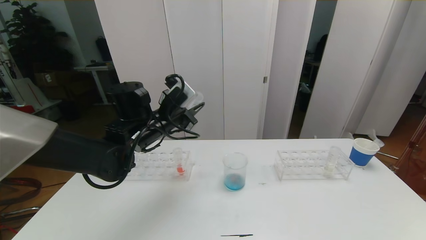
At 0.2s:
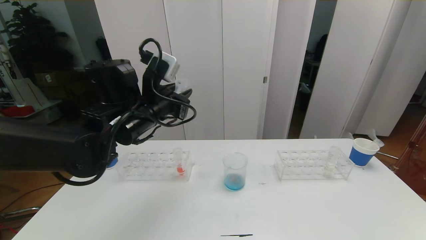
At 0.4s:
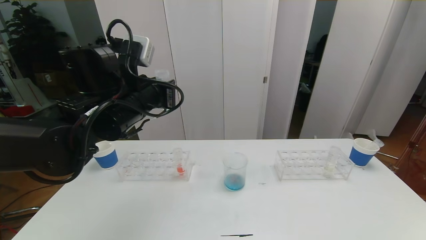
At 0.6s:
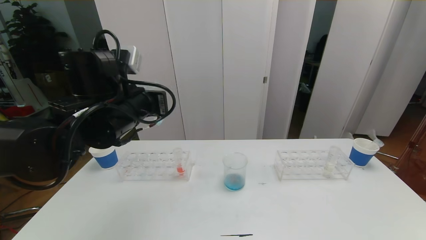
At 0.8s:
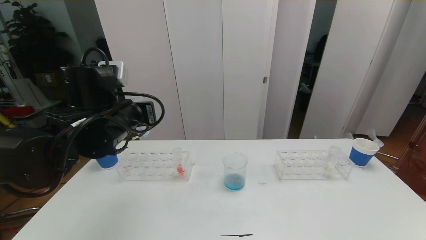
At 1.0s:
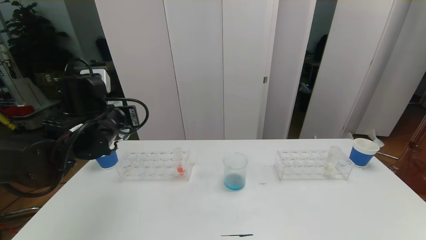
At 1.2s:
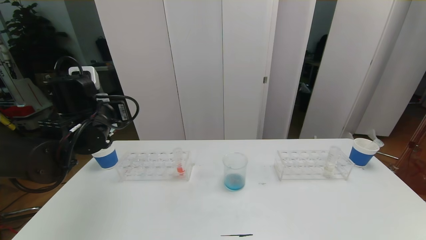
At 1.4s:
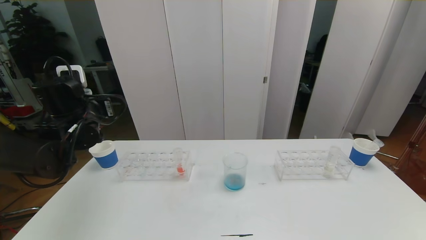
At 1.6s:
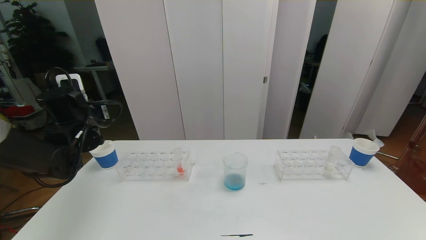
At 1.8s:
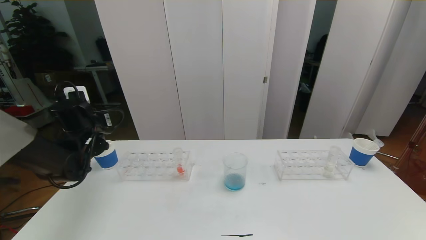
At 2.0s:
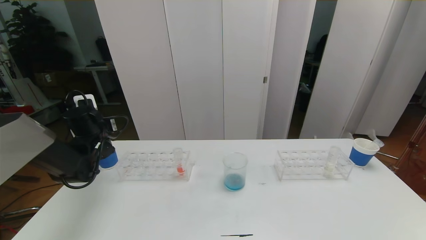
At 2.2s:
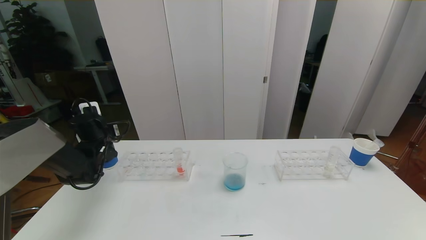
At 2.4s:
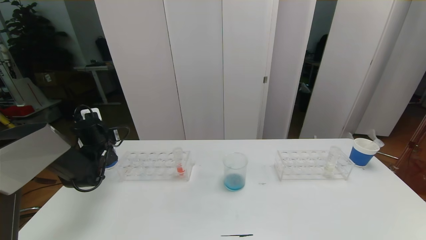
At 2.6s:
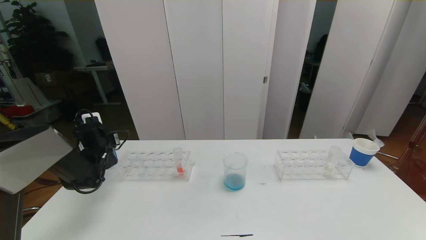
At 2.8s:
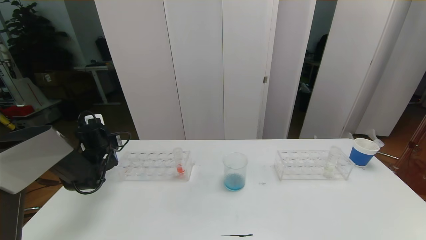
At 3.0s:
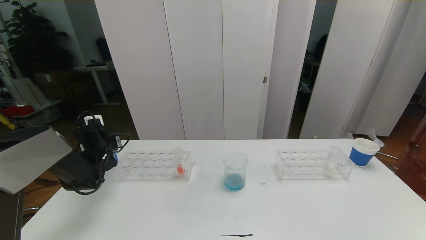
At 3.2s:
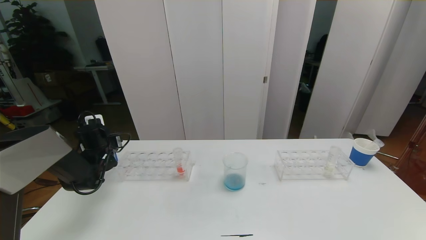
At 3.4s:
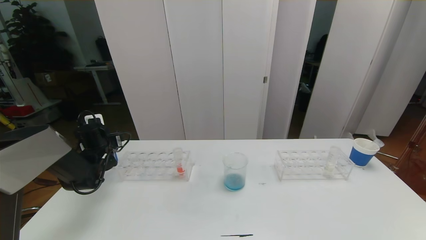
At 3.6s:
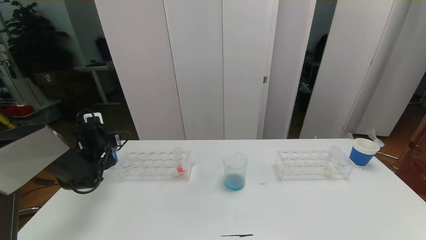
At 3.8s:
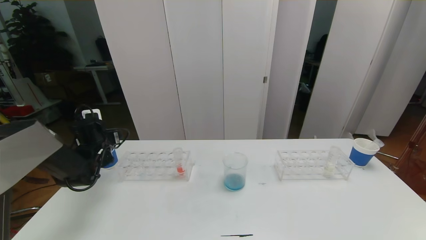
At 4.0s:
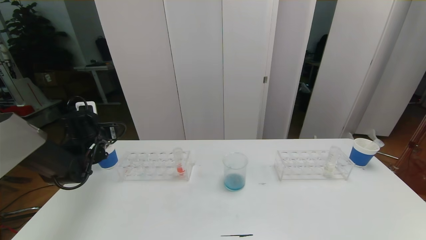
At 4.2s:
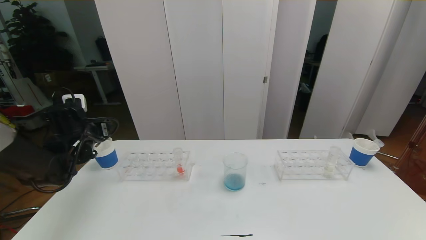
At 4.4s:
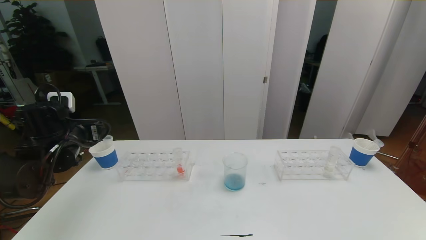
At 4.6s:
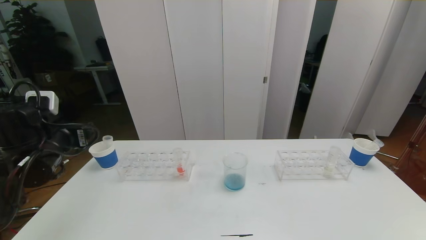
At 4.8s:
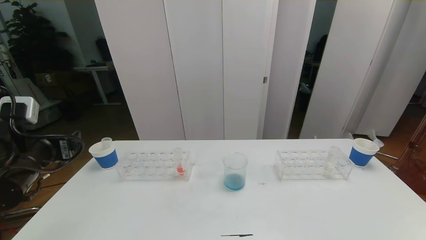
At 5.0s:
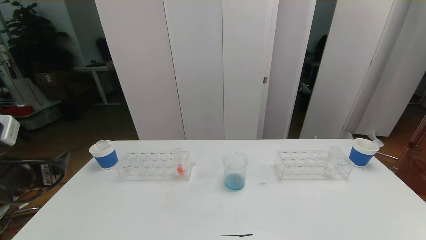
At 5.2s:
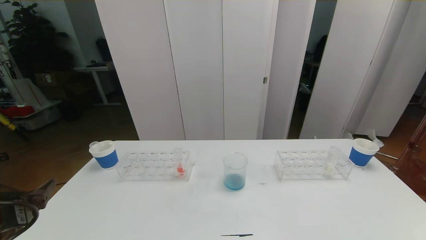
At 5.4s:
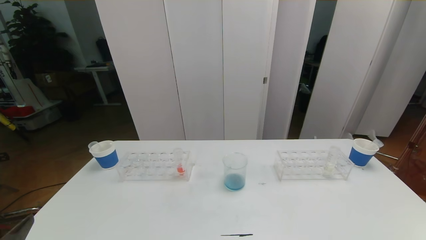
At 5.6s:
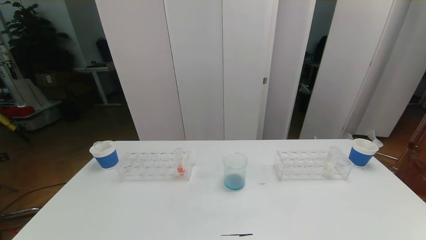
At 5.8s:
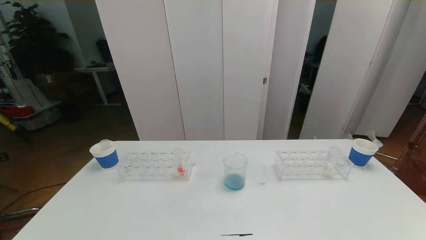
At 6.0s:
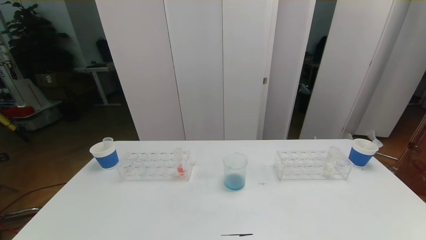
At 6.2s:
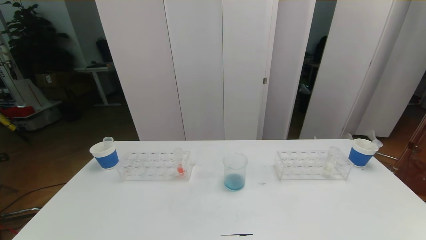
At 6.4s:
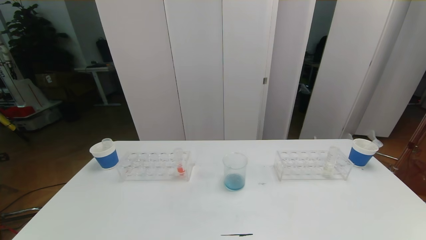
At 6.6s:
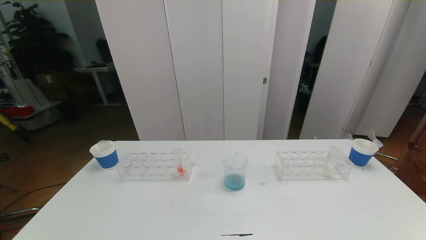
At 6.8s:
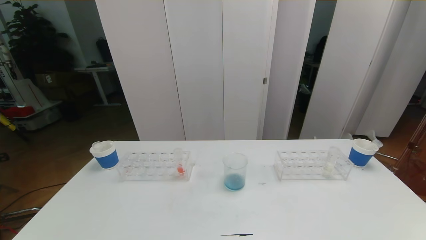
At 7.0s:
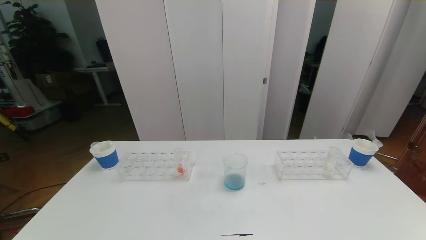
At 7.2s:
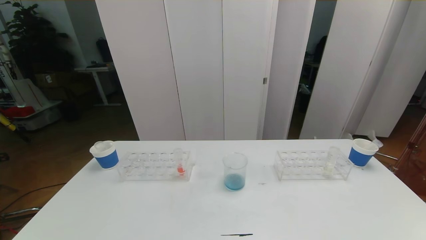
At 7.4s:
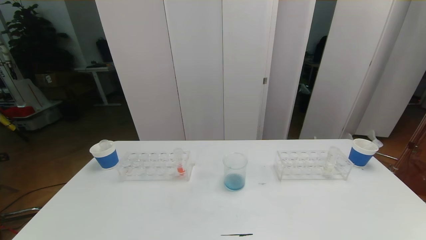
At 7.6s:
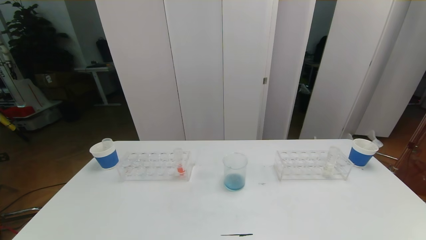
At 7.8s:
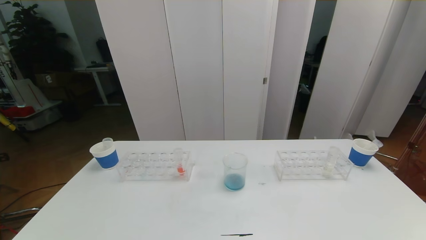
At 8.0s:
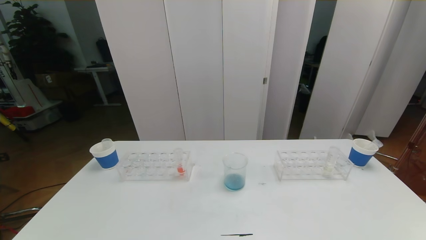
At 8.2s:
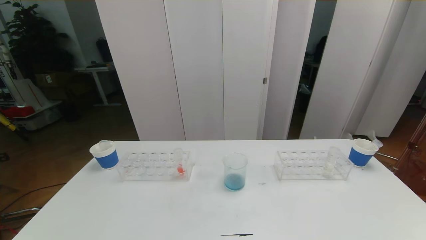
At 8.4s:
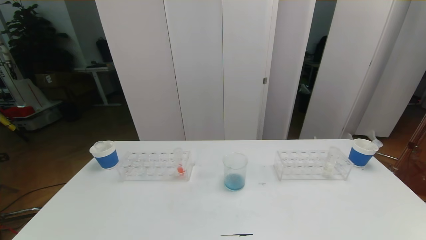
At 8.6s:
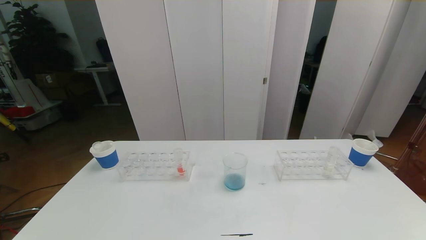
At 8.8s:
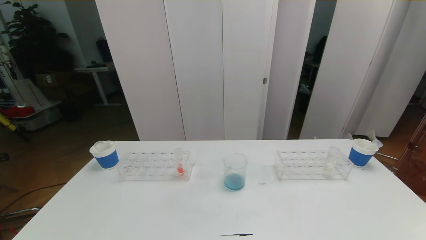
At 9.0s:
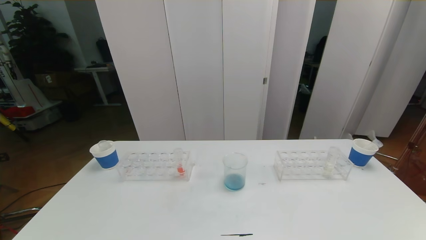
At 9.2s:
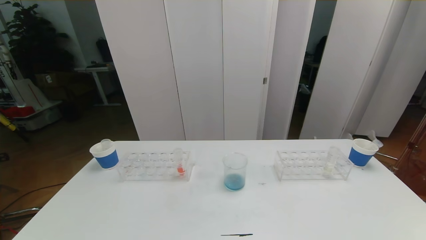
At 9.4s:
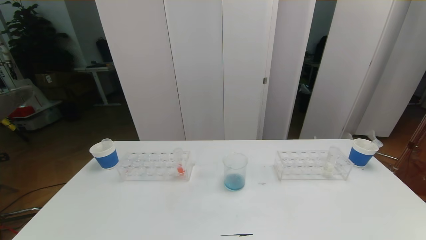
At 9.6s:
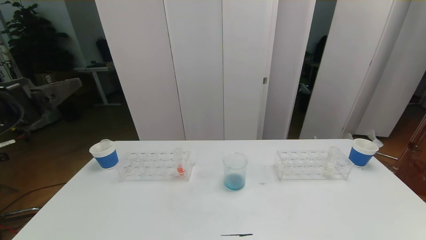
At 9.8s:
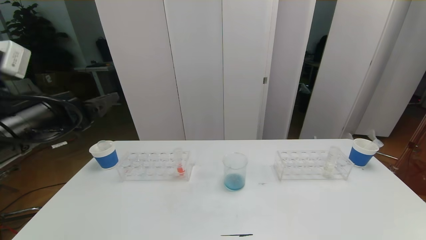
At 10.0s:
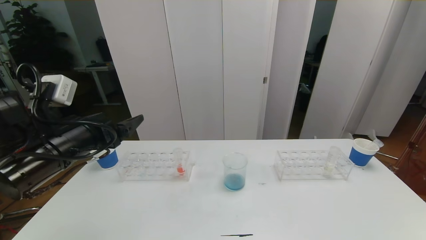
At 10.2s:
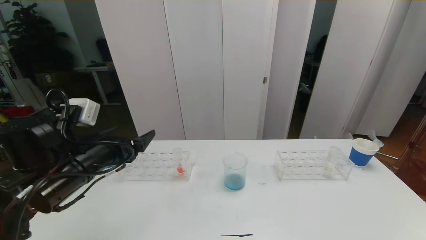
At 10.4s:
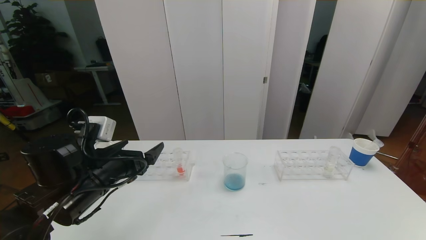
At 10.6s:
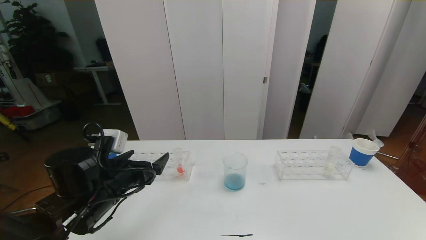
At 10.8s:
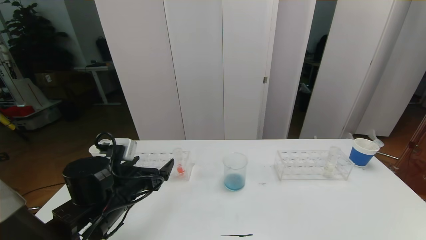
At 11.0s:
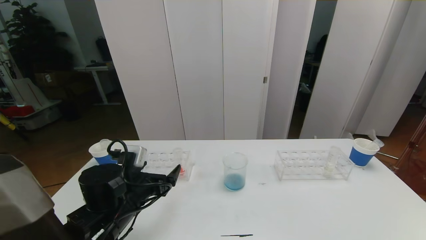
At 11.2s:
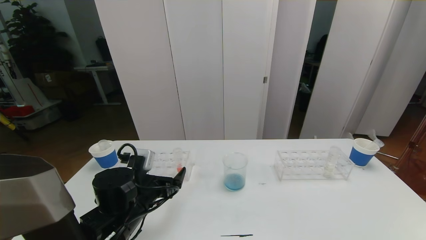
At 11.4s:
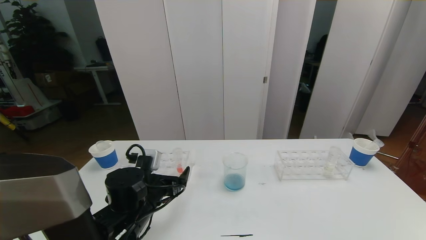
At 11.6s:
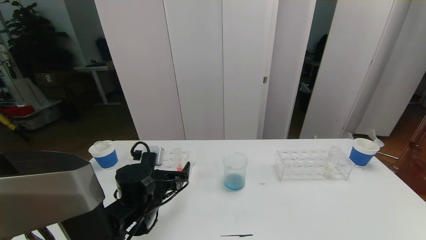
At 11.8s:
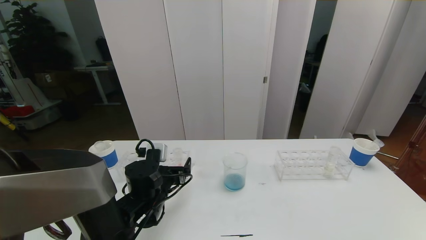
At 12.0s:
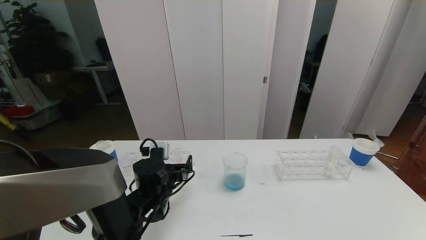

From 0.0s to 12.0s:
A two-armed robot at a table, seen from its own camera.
Task of the whole recording: pick up the test tube with red pigment the test tube with blue pigment and the test tube with white pigment by grippers and pour them into the beaker.
Step, from 0.0s to 6.2s: Pour the blue reagent into the graduated cylinder and place the test tube into the paper cup.
From 0.0s to 1.6s: The left gripper moves to the left, some 15 cm.
From 1.6s to 3.0s: The left gripper goes roughly 15 cm downward and forward.
From 3.0s to 4.4s: The left gripper heads upward and backward, covering approximately 15 cm, and opens its fingers.
From 4.4s to 6.0s: The left gripper shifts approximately 35 cm backward.
From 9.0s to 10.4s: The left gripper travels forward by roughly 25 cm.
From 10.4s to 12.0s: The left gripper moves downward, to the right and forward, about 15 cm.

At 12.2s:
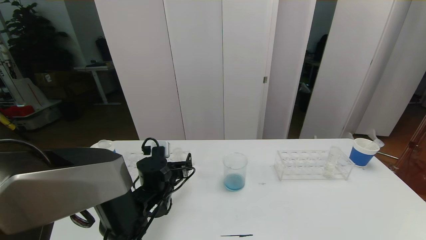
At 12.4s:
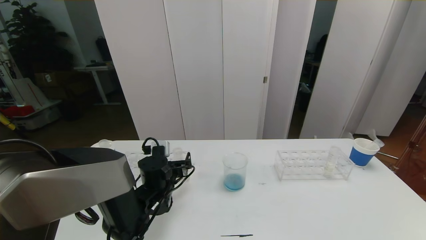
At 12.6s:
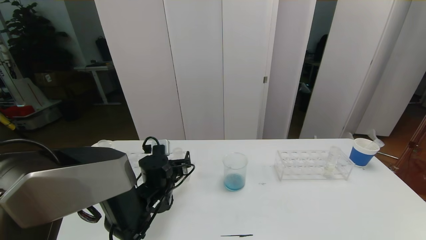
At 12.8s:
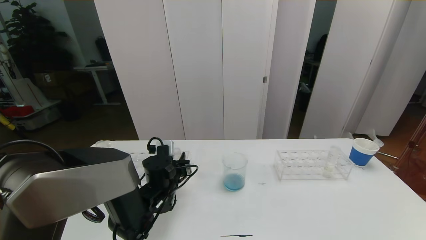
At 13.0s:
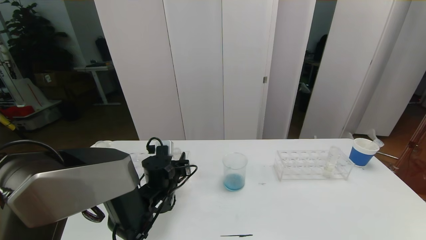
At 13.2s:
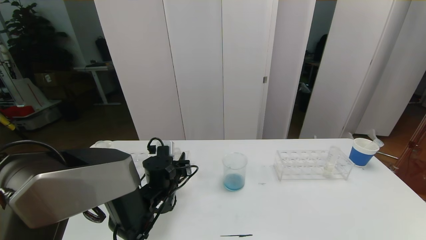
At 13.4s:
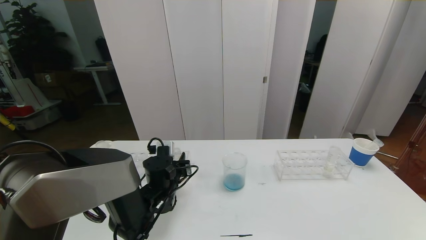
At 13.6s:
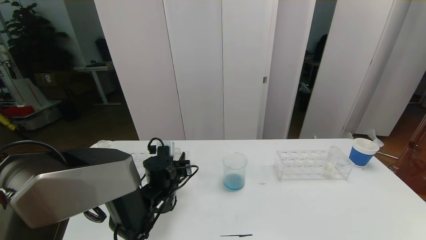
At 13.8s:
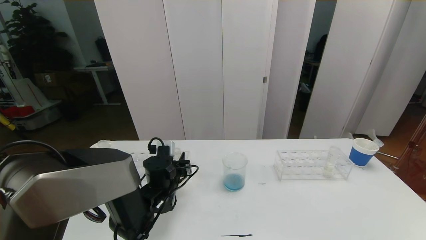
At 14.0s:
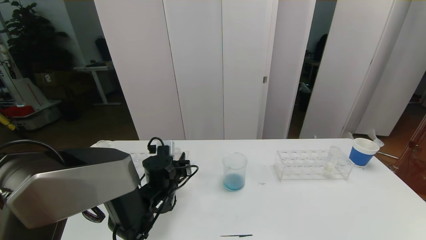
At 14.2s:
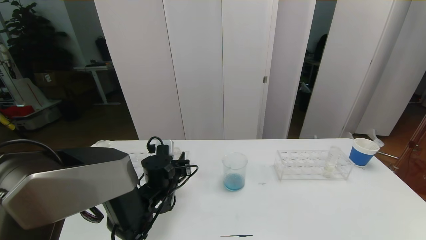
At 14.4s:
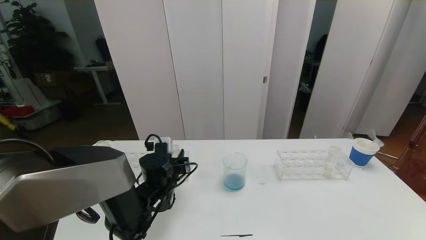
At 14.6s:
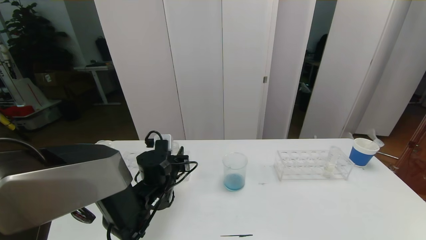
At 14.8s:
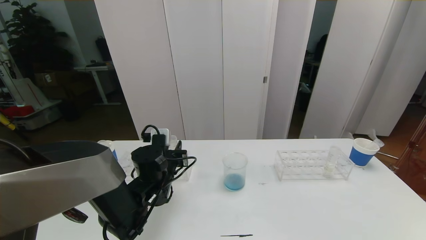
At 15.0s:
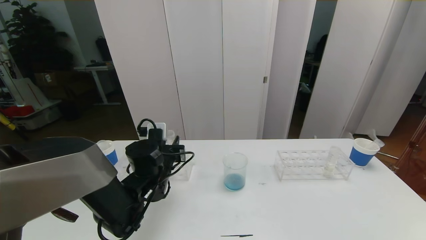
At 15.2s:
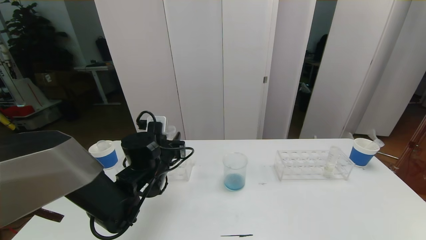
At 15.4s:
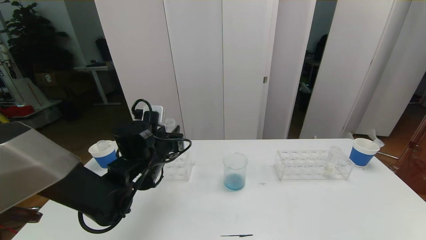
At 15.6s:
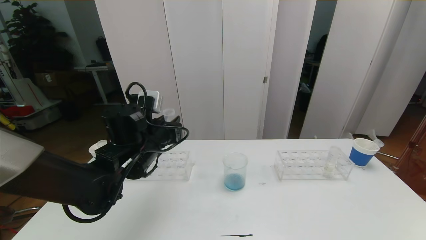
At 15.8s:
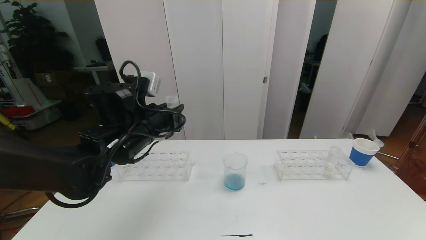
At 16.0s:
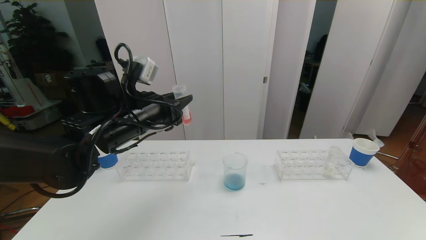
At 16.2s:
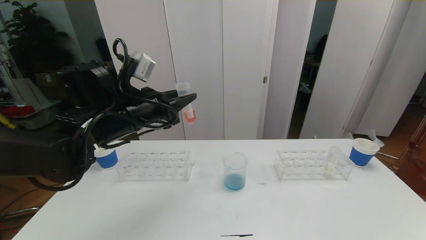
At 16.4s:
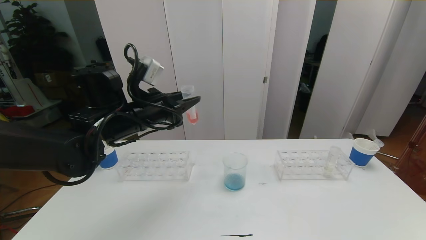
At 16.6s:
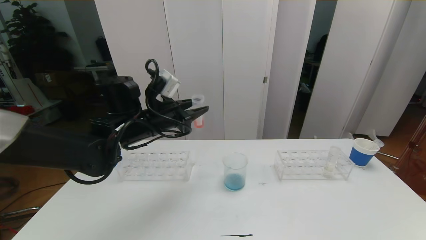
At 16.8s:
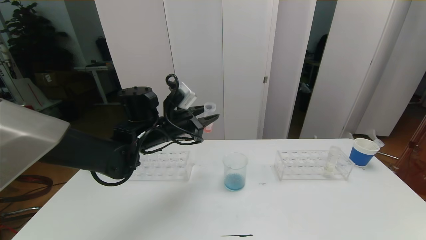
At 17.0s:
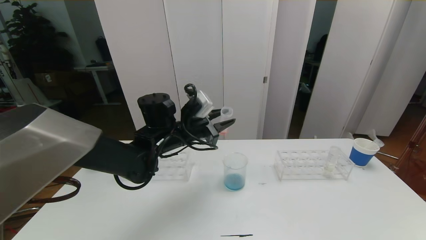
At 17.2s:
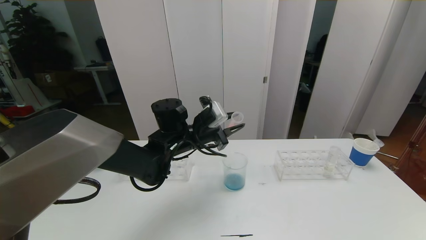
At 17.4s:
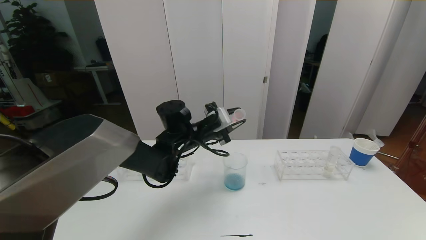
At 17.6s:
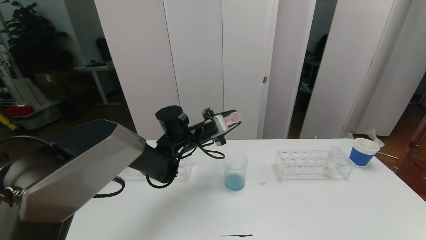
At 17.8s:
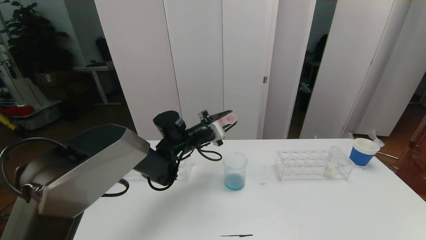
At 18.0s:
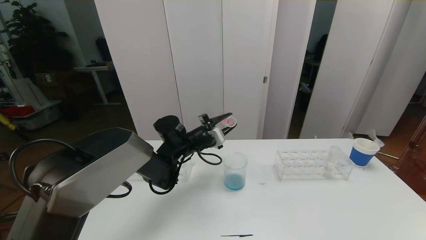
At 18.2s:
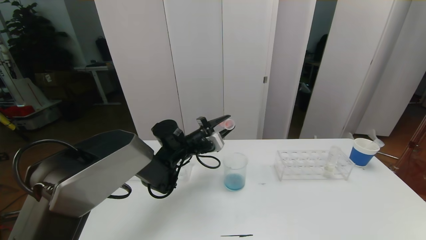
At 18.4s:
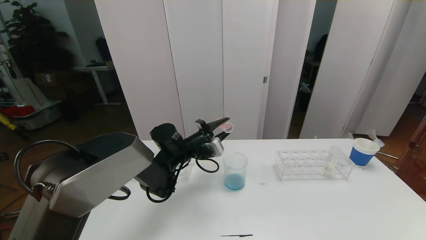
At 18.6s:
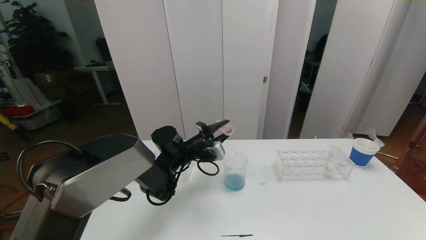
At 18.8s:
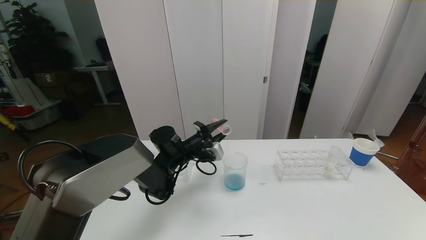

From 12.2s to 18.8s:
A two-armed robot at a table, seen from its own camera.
Task of the whole recording: pick up the test tube with red pigment the test tube with blue pigment and the test tube with white pigment by grippers and pour them into the beaker.
From 12.2s to 13.8s: The left gripper closes its fingers.
From 13.8s to 15.4s: The left gripper moves upward, roughly 10 cm.
From 15.4s to 17.2s: The left gripper is displaced to the right and forward by approximately 10 cm, and goes upward and returns, roughly 10 cm each way.
From 17.2s to 18.8s: The left gripper travels downward by about 5 cm.
